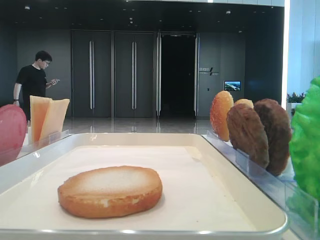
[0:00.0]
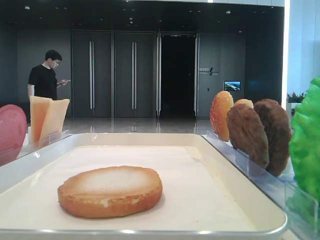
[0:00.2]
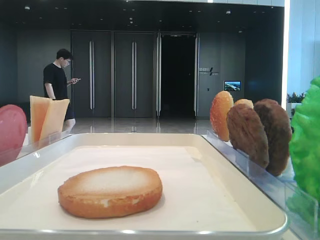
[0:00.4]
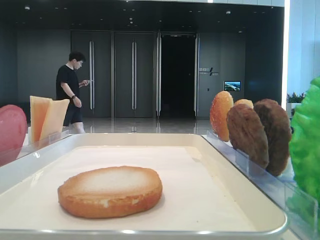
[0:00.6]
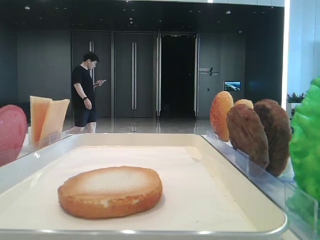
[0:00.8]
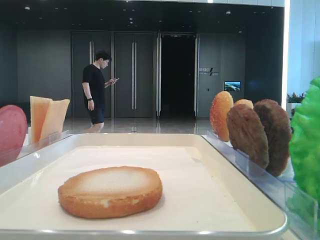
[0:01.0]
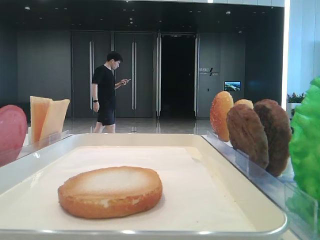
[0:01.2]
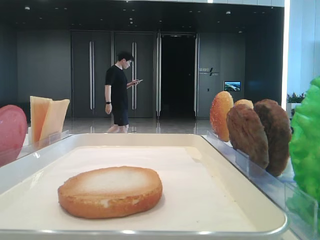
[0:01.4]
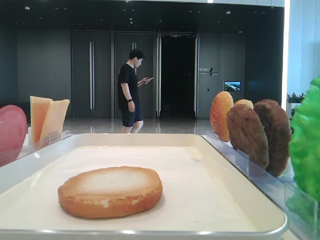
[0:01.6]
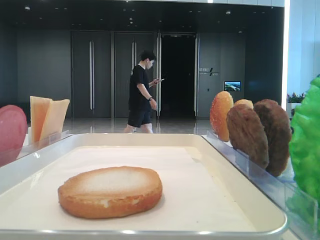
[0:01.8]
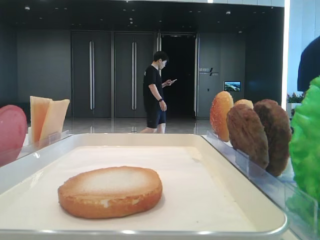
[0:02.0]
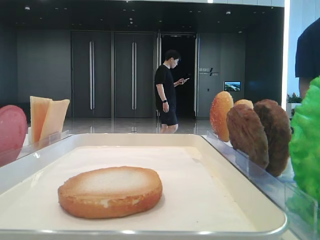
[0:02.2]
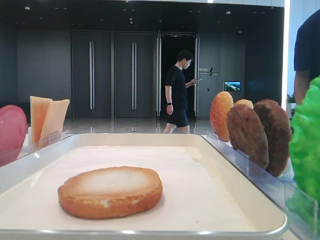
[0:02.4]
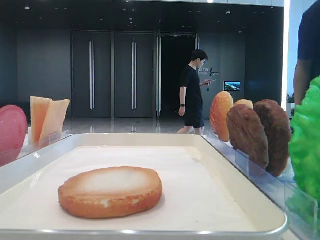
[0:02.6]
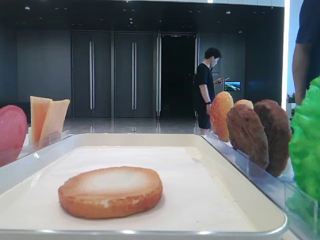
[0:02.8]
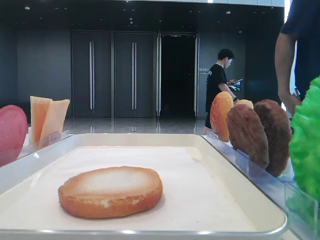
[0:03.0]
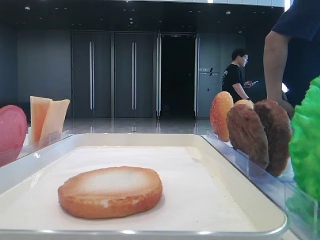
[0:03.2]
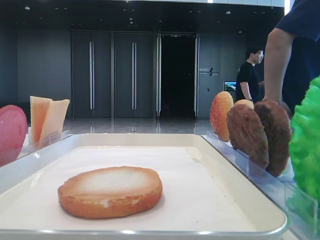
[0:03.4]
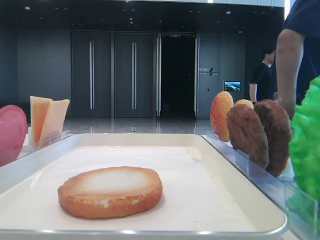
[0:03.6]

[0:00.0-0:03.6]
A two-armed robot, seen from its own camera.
0:00.0 to 0:01.8: The left gripper is displaced backward by roughly 25 cm.
0:01.8 to 0:03.6: The grippers move only a little.

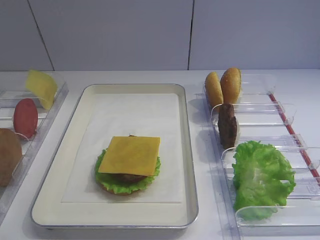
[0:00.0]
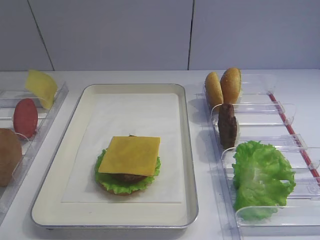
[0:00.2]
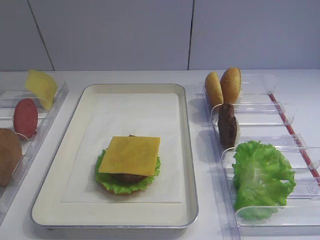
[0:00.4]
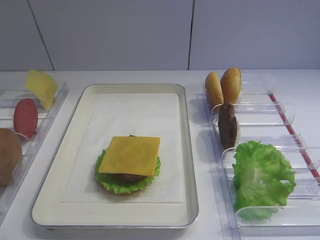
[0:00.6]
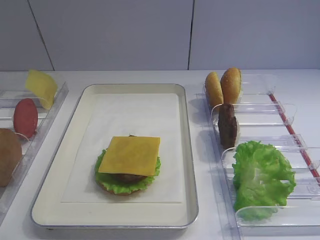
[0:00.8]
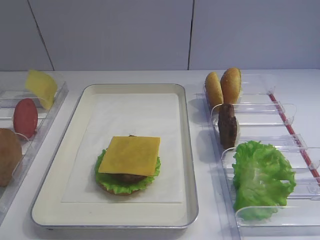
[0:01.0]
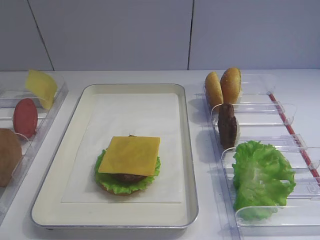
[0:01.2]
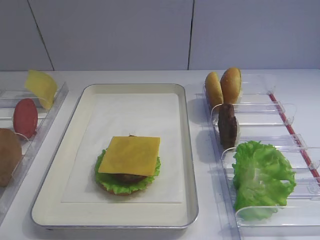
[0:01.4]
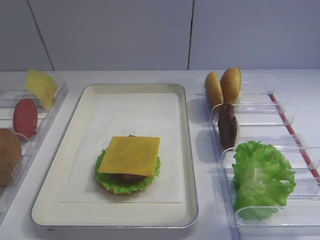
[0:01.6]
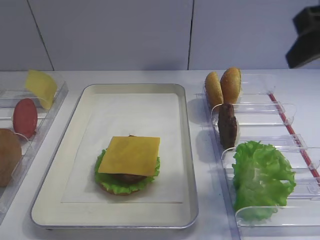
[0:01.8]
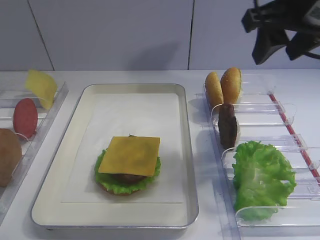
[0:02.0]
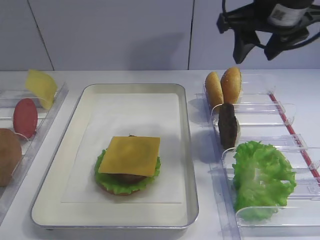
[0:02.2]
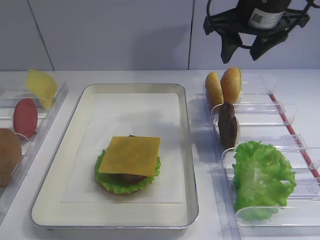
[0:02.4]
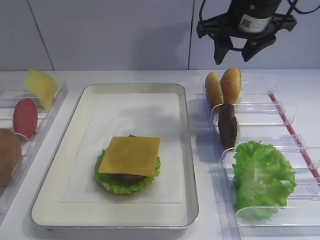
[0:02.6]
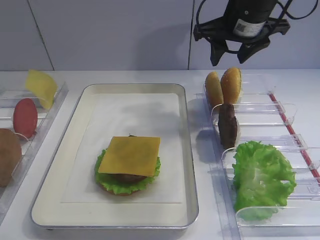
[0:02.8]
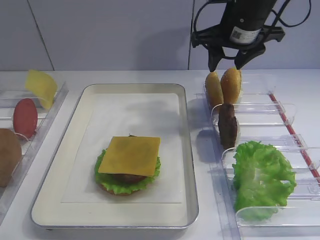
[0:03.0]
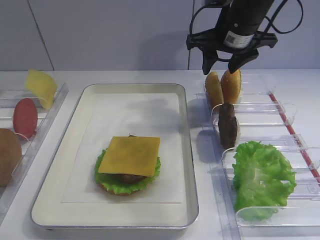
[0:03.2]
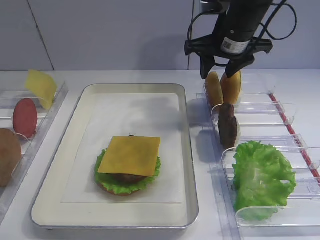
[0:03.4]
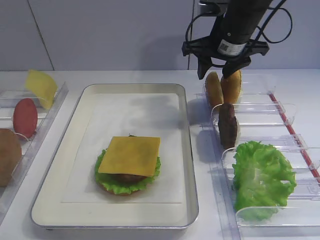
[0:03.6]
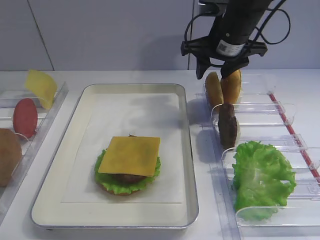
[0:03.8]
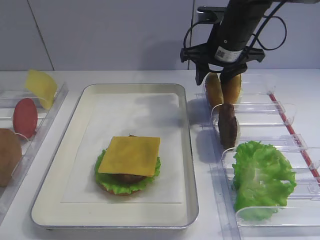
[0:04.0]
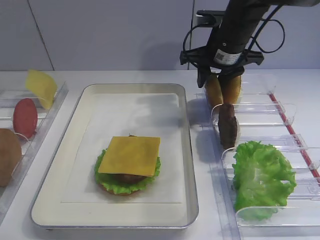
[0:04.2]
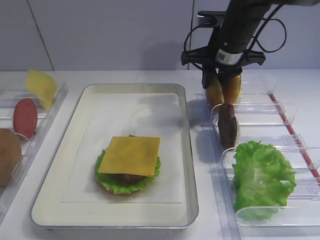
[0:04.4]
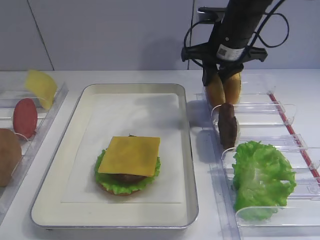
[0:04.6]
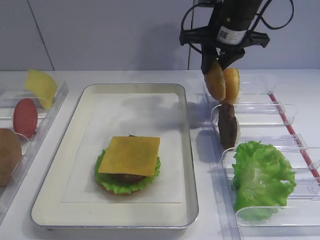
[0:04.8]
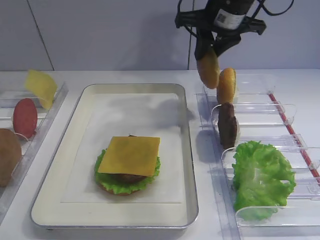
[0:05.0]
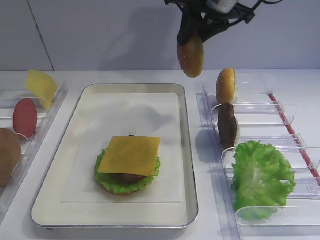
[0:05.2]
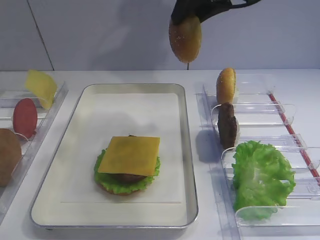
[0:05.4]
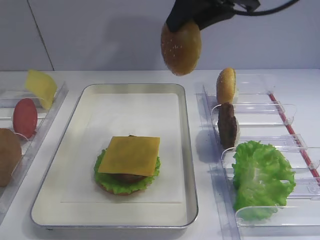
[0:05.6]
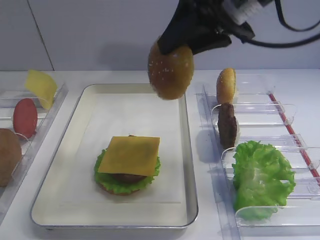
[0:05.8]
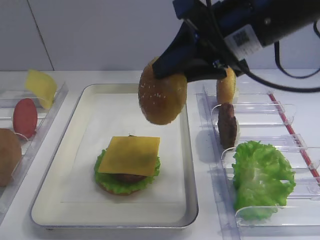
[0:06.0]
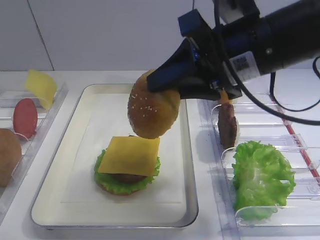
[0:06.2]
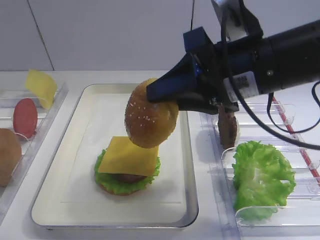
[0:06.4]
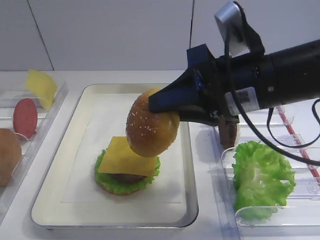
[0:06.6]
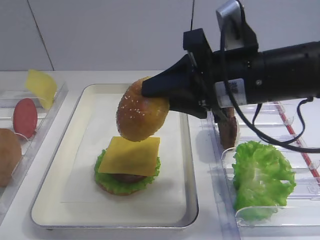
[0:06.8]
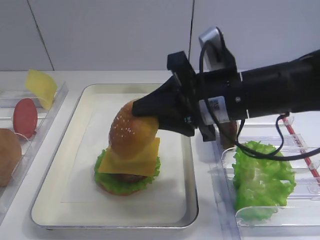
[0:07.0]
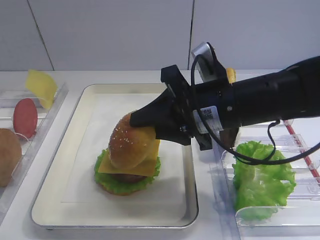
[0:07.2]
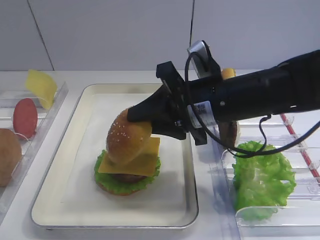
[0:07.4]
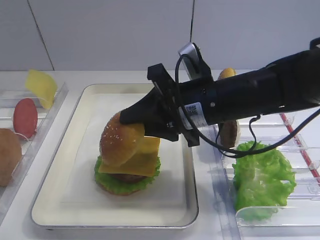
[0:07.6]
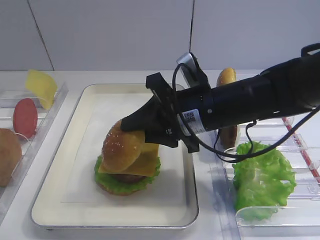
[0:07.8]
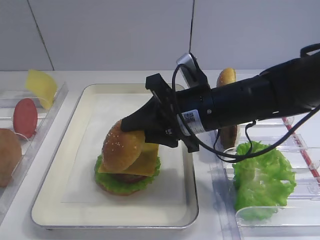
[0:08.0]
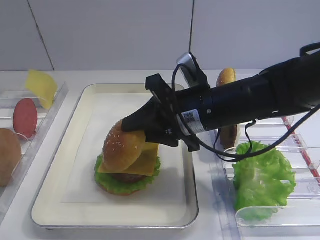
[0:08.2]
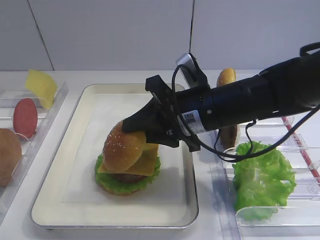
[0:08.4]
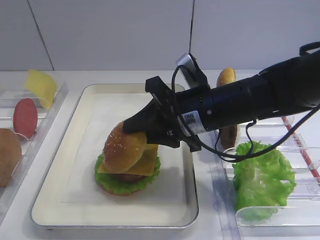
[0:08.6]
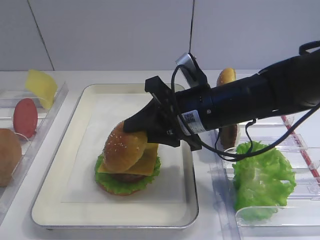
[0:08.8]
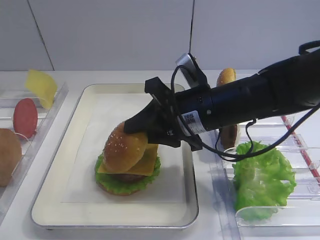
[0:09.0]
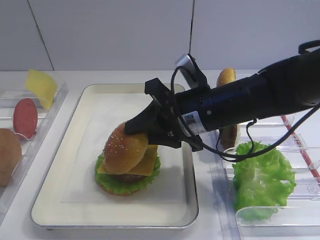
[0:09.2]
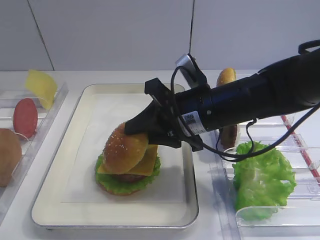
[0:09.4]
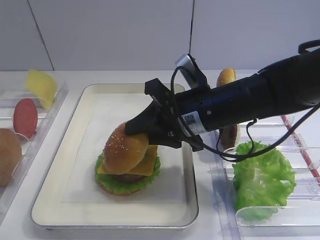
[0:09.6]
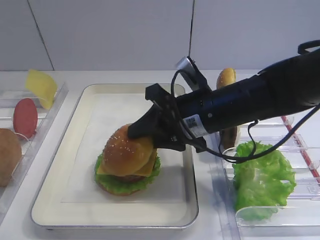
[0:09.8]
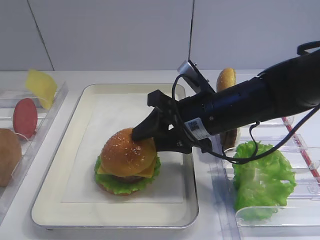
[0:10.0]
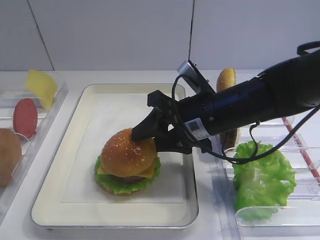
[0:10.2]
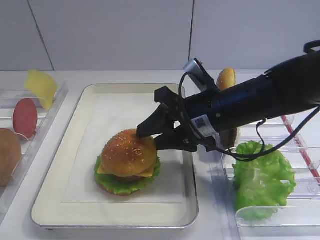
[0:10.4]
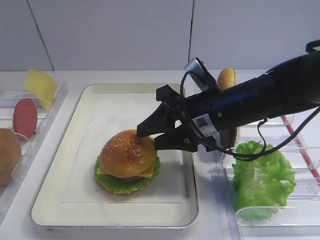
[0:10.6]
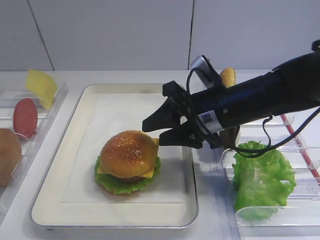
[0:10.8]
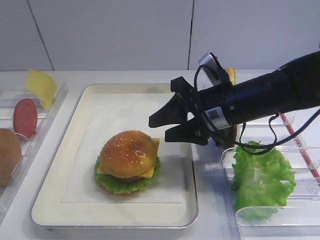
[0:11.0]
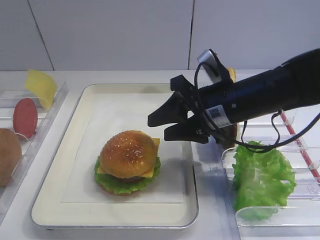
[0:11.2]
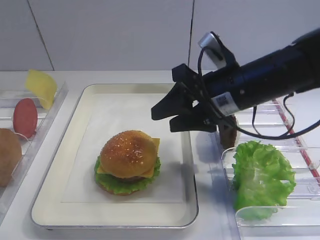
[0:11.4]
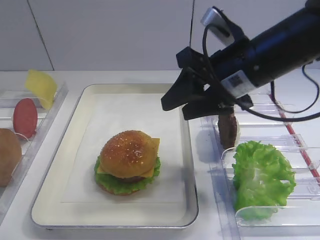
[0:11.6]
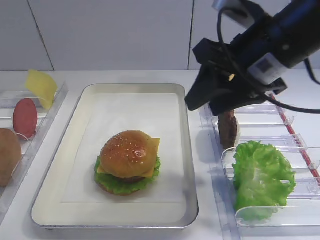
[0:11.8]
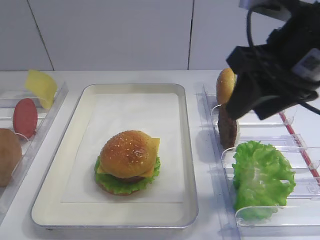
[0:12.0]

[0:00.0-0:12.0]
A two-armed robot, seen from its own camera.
Step, 0:00.0 to 0:04.8: Pick up the hamburger lid with the right gripper.
Step, 0:05.0 to 0:11.2: Place the hamburger lid on the cheese slice with the right gripper.
0:01.6 to 0:03.0: The right gripper goes roughly 25 cm forward and to the left.
0:03.0 to 0:04.4: The right gripper shifts by approximately 5 cm, and closes its fingers.
0:04.4 to 0:06.0: The right gripper goes some 15 cm backward and upward.
0:06.0 to 0:07.6: The right gripper moves downward, about 10 cm.
0:07.6 to 0:09.0: The grippers make only small movements.
0:09.0 to 0:10.4: The right gripper opens.
0:10.4 to 0:12.0: The right gripper goes about 15 cm upward and to the right.

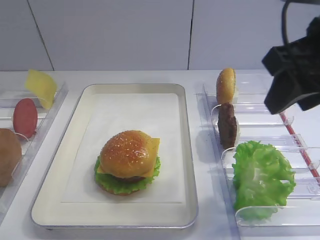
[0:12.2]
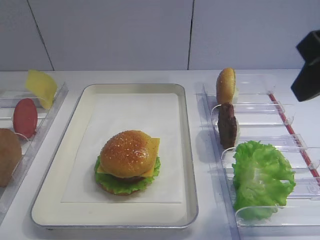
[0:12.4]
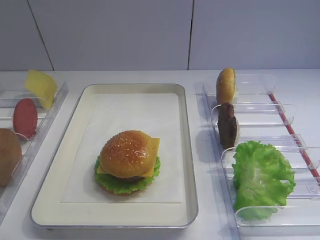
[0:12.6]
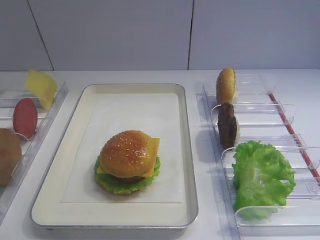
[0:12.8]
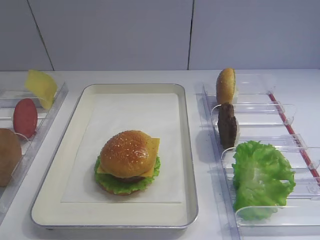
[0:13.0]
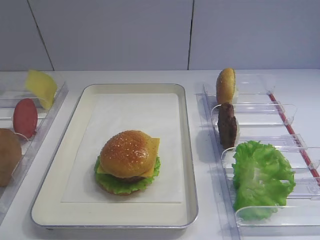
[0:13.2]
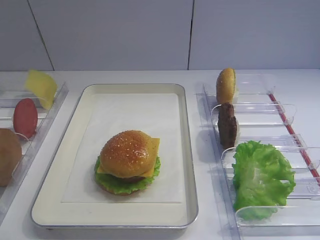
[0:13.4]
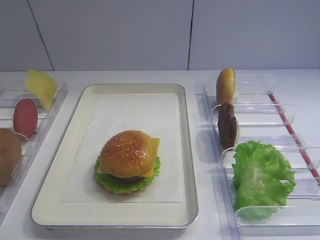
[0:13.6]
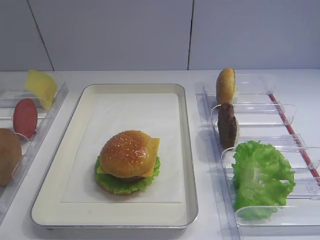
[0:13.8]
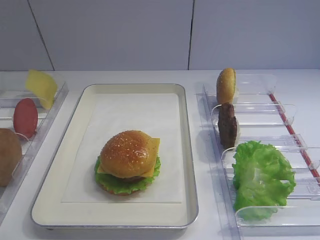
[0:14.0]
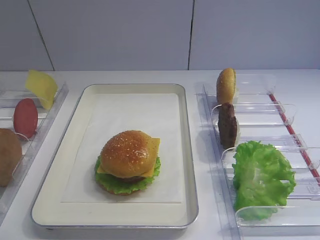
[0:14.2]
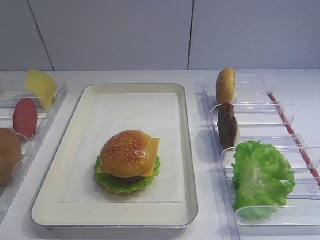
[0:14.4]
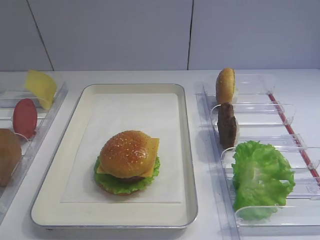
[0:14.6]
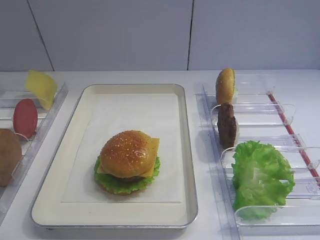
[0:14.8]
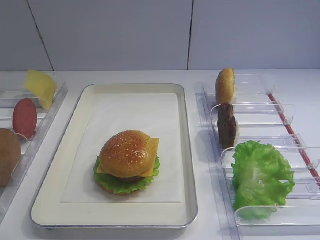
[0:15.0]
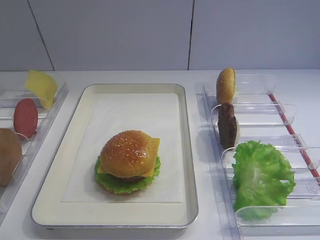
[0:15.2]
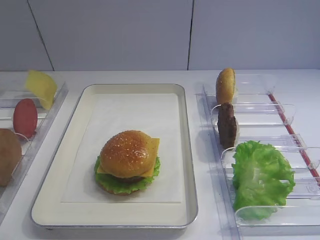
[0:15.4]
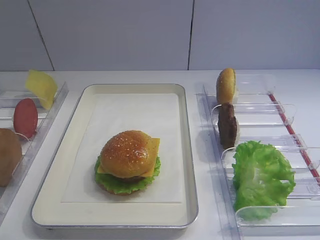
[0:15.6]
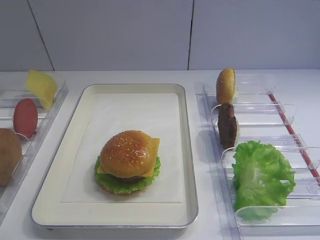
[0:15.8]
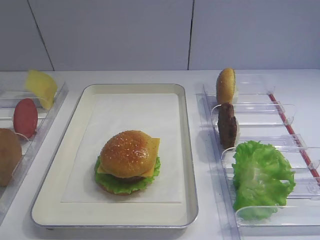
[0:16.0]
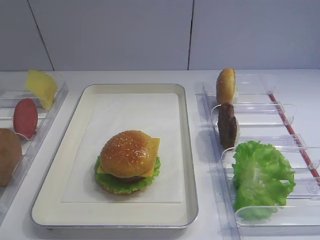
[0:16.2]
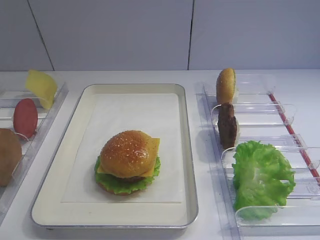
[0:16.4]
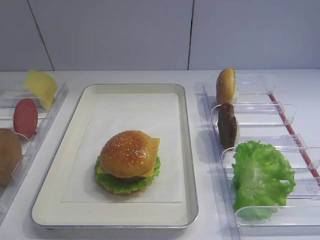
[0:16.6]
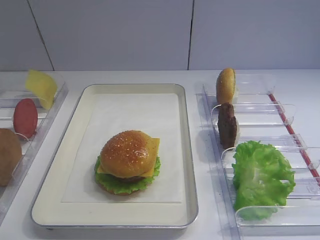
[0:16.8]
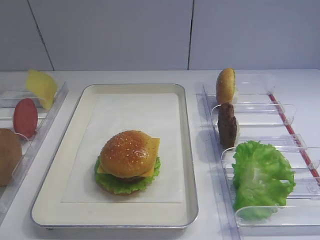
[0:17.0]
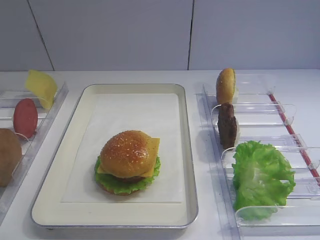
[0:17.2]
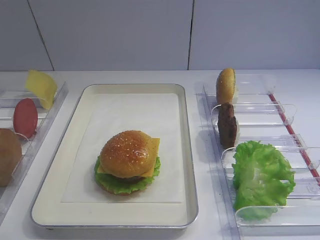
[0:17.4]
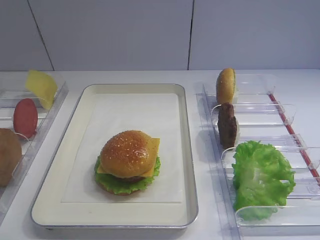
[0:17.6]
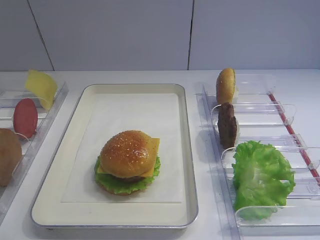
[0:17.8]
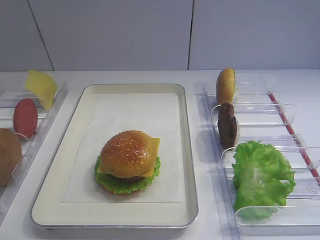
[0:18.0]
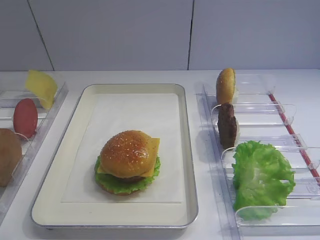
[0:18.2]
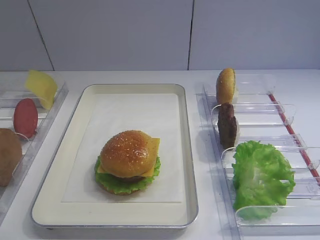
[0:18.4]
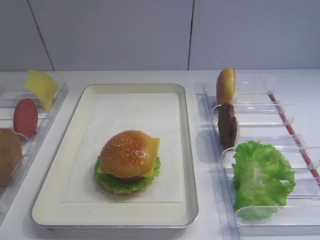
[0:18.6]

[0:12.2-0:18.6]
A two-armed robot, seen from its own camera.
0:12.2 to 0:13.8: The right gripper is displaced backward and to the right by approximately 25 cm.
0:15.4 to 0:18.6: Both grippers stay about where they are.
